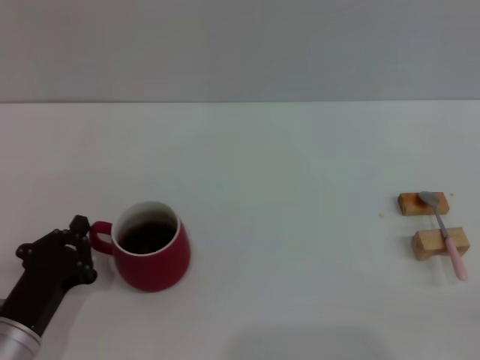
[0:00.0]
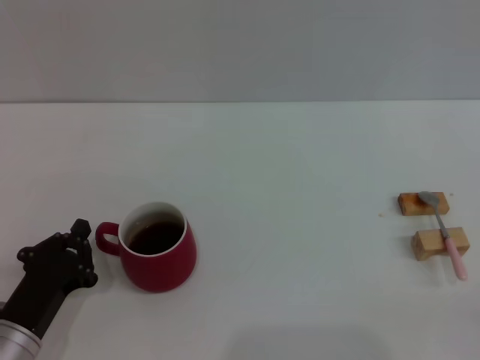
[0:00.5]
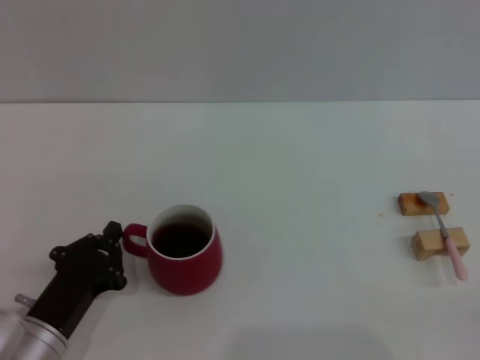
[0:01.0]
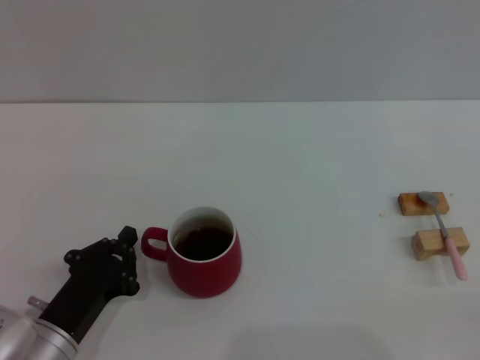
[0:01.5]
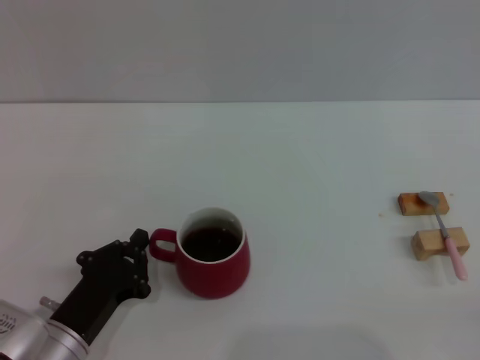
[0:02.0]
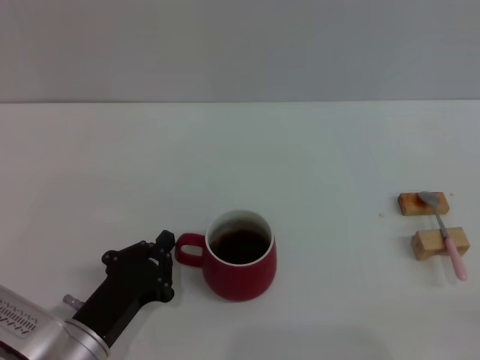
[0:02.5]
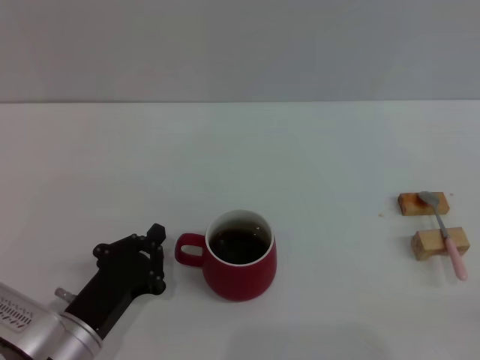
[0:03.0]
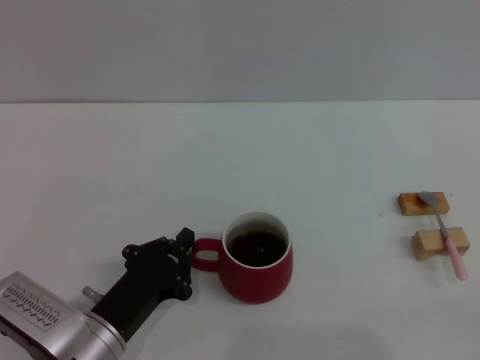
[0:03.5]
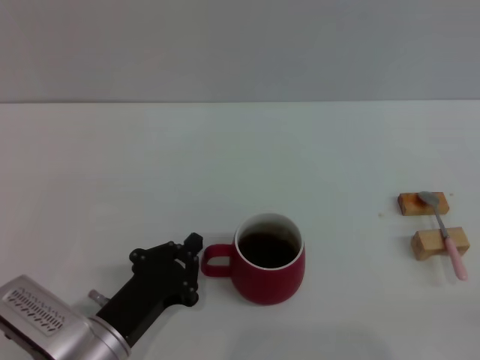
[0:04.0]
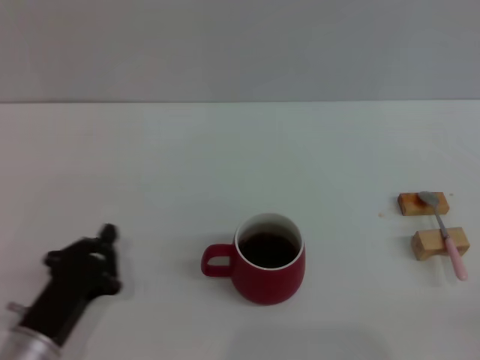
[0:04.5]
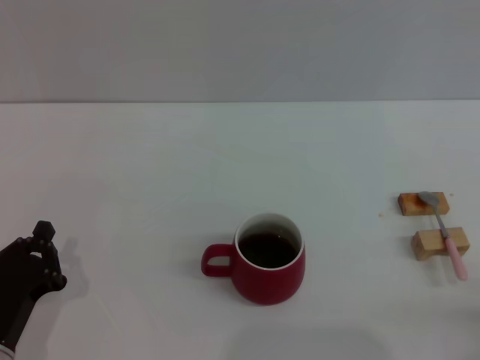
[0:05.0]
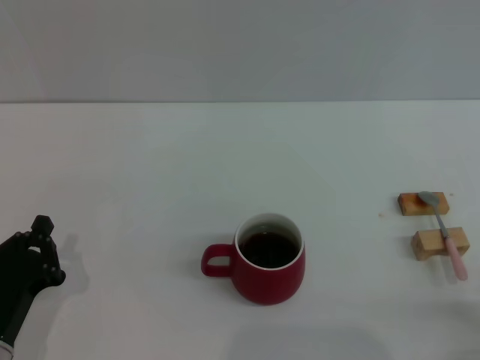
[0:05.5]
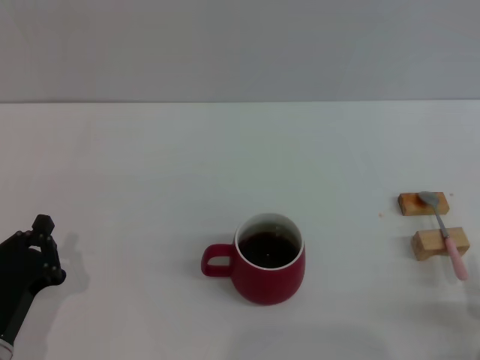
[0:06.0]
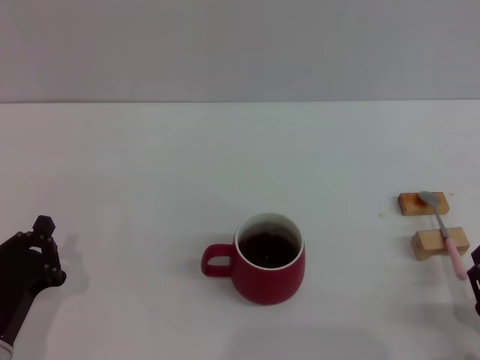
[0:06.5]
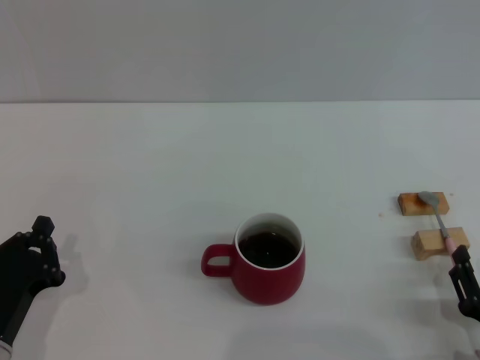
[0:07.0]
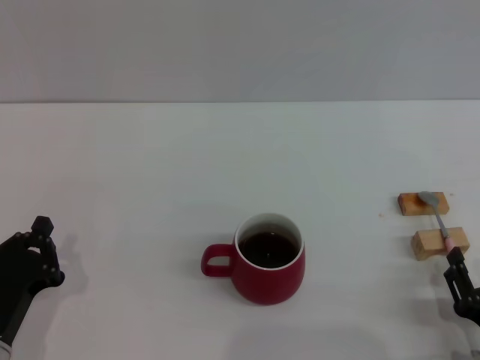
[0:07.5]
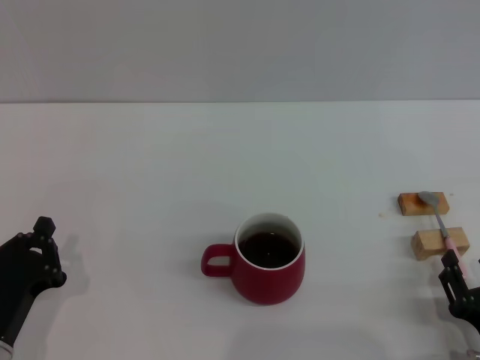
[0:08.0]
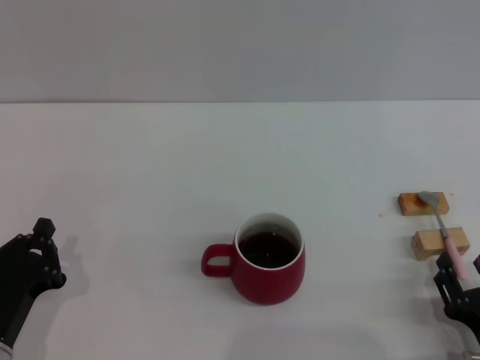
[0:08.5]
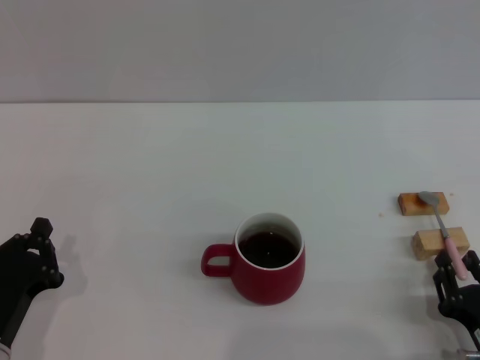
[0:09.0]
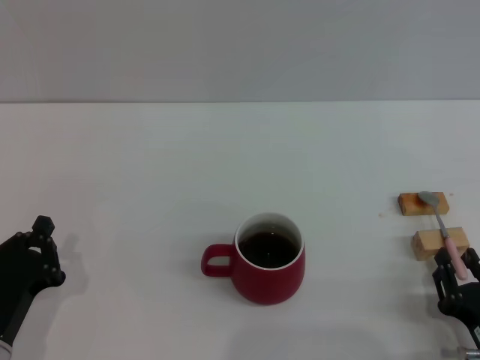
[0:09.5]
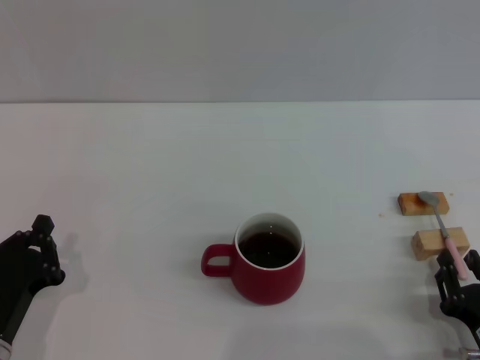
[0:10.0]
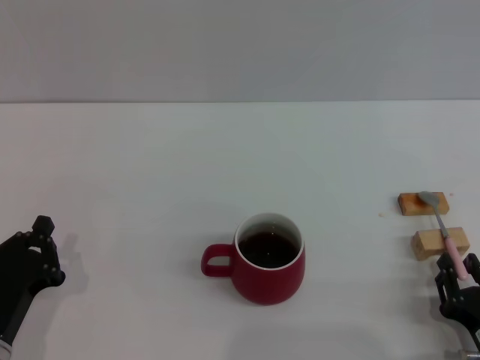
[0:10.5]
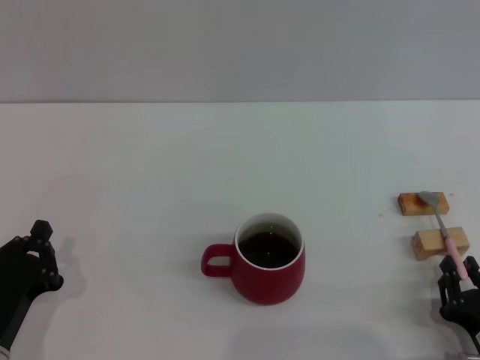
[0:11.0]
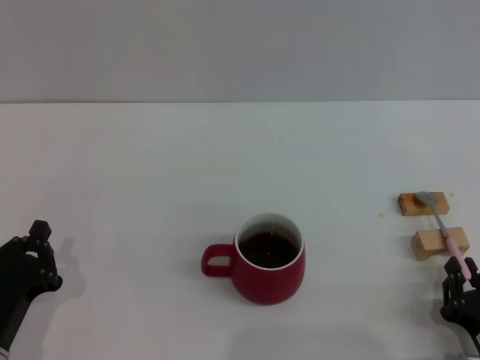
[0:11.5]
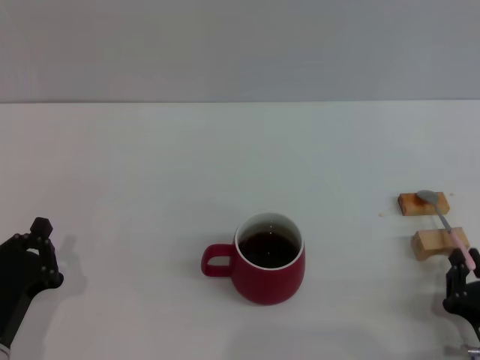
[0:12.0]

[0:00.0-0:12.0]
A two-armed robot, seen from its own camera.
Task of the whole recording: Move the red cup to the center, lift the pink spoon, stir it three times in the cup, and put the spoon into the cup.
Step, 0:00.0 to 0:04.0: Move the cup with coffee to the center of view with the left gripper.
0:00.0 to 0:02.0: The grippers move only a little.
0:02.0 to 0:04.0: There are only small adjustments of the grippers.
0:04.0 to 0:06.0: The right gripper goes some 5 cm to the left; the left gripper moves to the left, approximately 10 cm.
0:06.0 to 0:08.0: There are only small adjustments of the grippers.
0:08.0 to 0:10.0: Both grippers stay about where they are.
0:10.0 to 0:12.0: The right gripper closes its fingers.

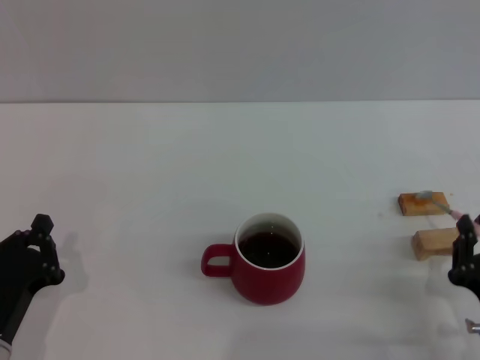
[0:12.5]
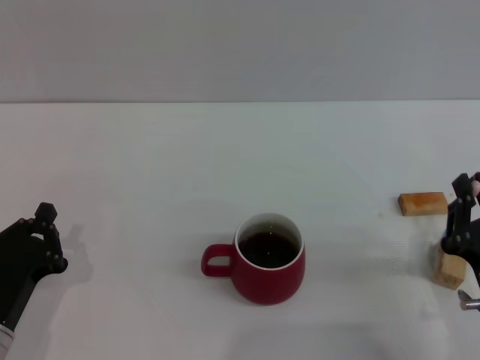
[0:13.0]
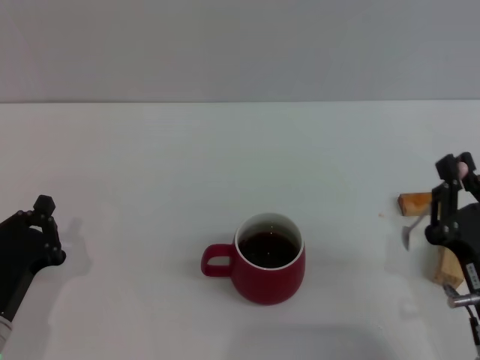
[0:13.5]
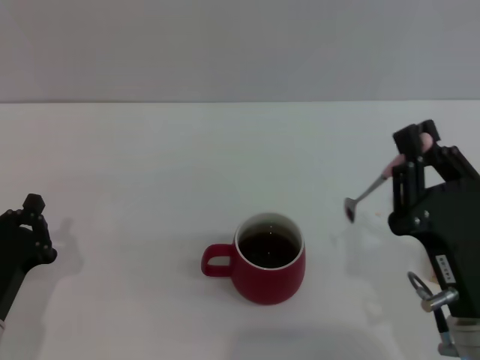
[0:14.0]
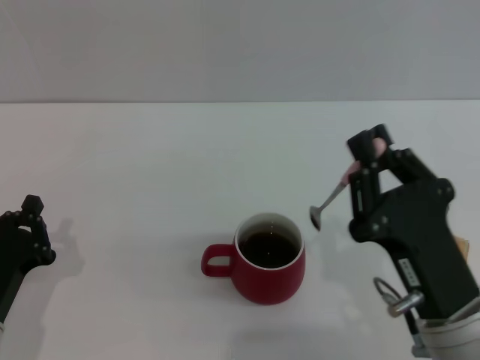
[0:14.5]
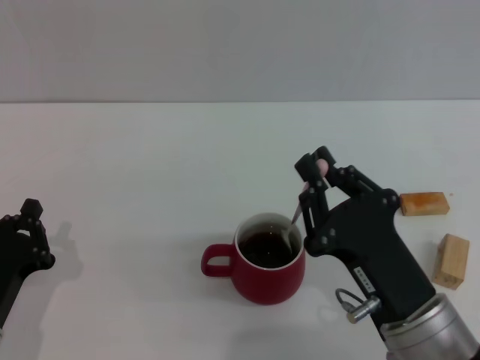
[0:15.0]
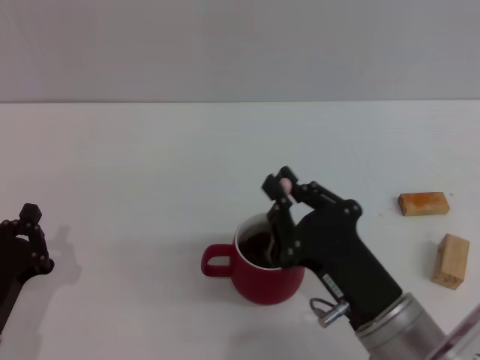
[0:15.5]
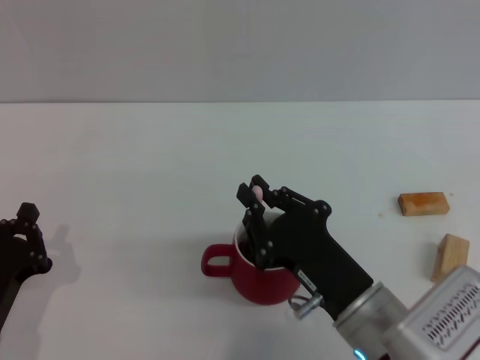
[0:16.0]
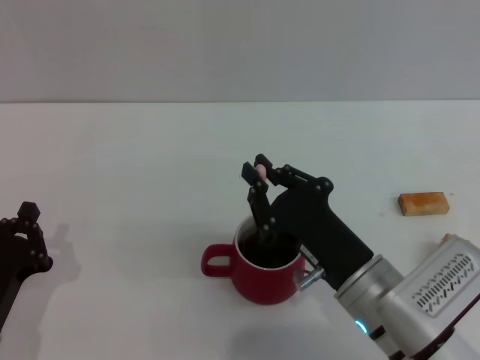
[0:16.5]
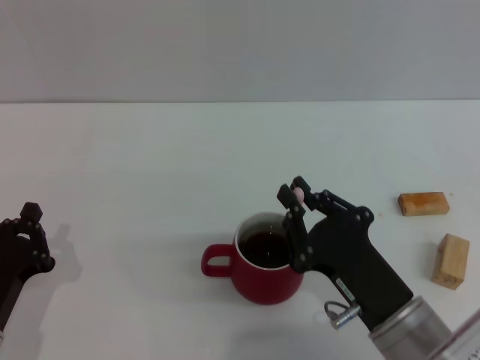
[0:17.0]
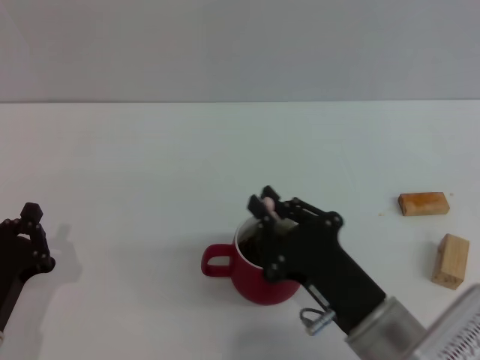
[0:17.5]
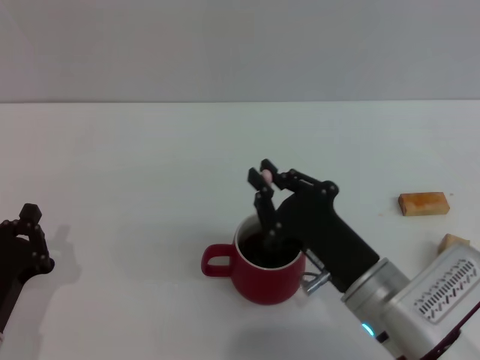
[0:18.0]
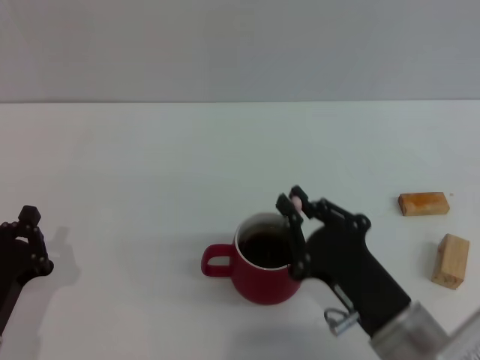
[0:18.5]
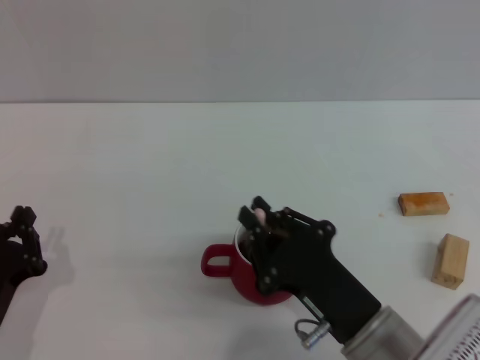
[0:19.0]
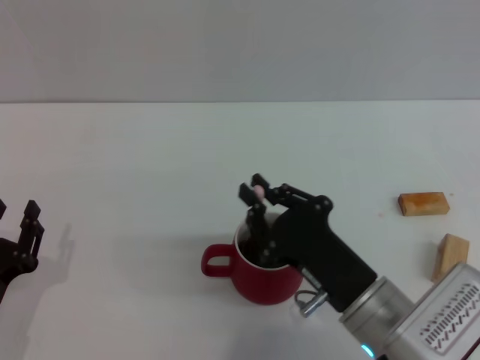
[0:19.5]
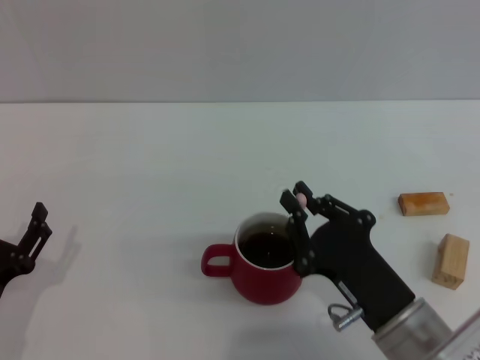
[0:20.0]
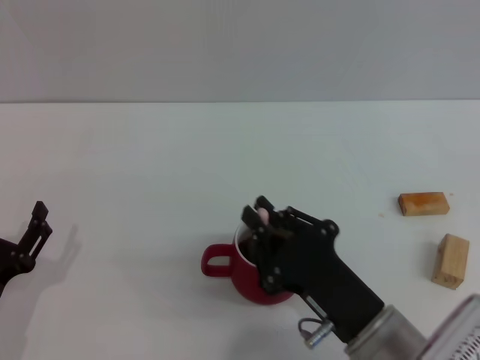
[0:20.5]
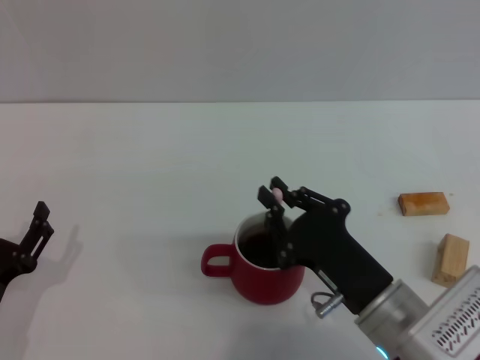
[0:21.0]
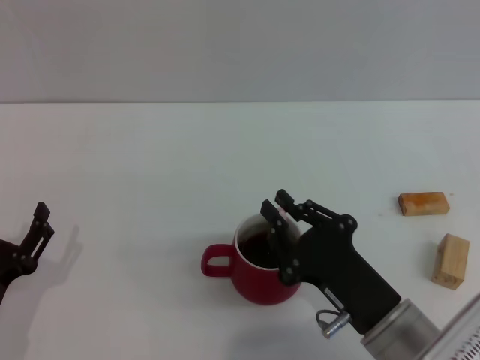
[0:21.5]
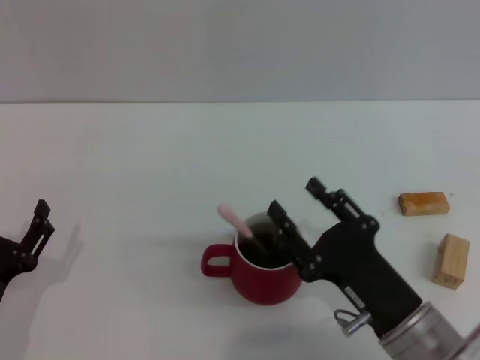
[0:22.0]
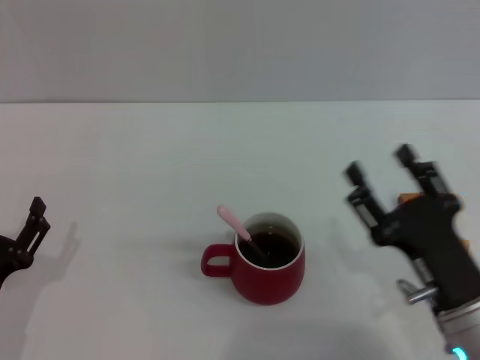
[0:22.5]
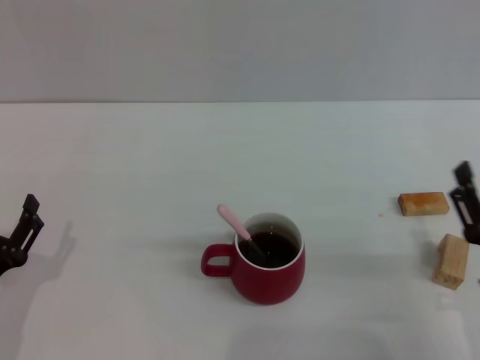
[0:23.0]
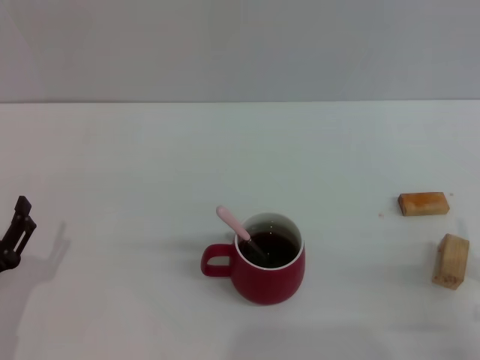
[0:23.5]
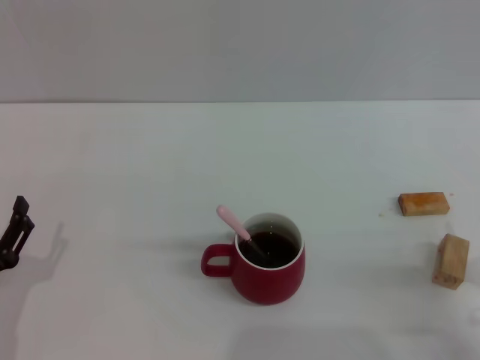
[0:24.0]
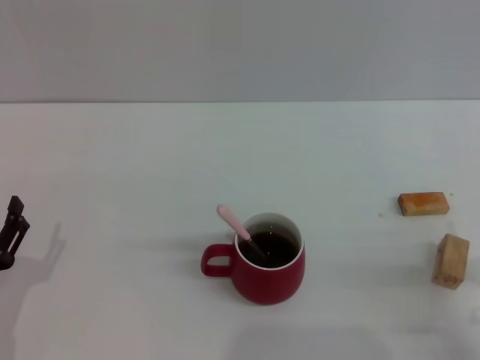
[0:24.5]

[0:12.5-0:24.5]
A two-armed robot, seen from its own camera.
Task of the whole recording: Move the red cup to the center, lift the pink spoon, stir it three times in the cup, and put the spoon into the cup.
Step, 0:14.0 to 0:22.0: Stir the coffee in the cup with the right gripper.
0:12.5 to 0:14.5: The right gripper travels to the left and upward by roughly 10 cm.
0:14.5 to 0:16.5: The right gripper heads forward, covering some 5 cm.
0:16.5 to 0:18.5: The right gripper swings forward and backward, about 5 cm each way, with 2 reversals.
0:18.5 to 0:20.5: The left gripper opens up.
0:20.5 to 0:22.5: The right gripper shifts some 5 cm to the right, and opens.
0:22.5 to 0:24.5: The right gripper heads to the right, covering about 10 cm.

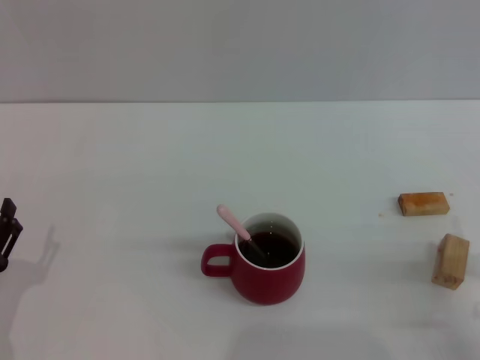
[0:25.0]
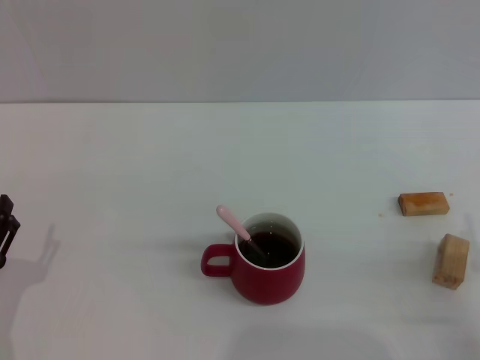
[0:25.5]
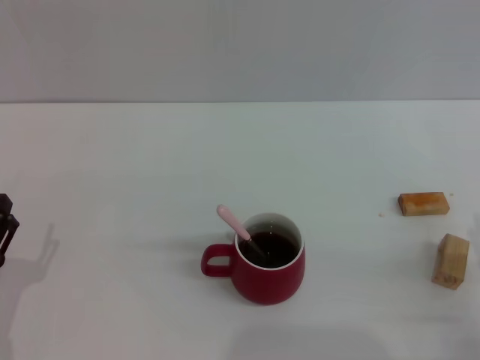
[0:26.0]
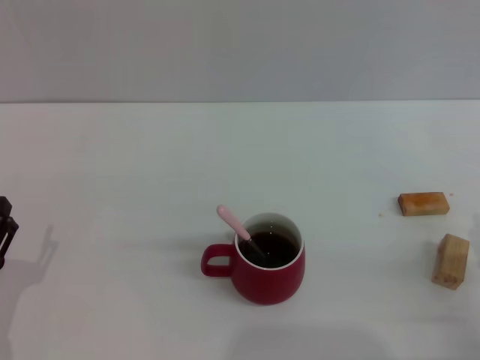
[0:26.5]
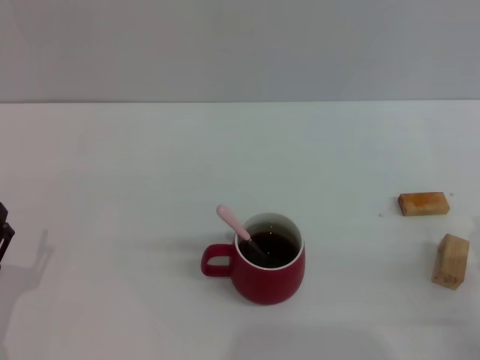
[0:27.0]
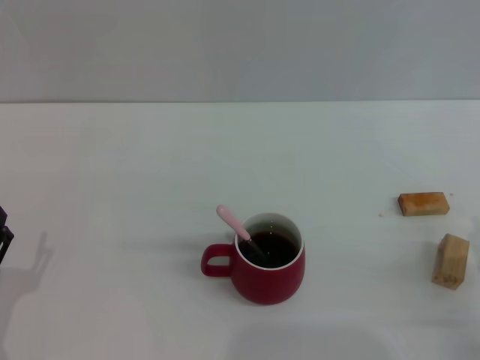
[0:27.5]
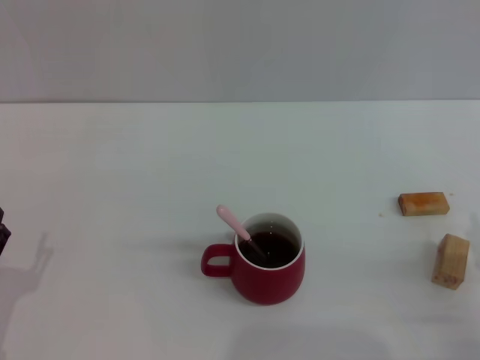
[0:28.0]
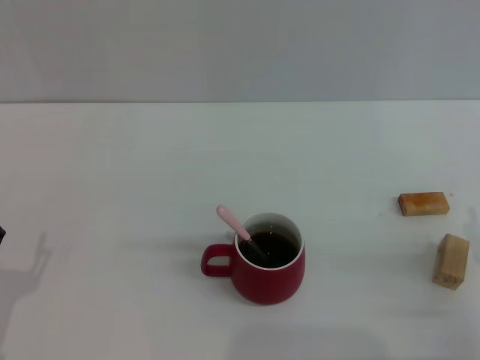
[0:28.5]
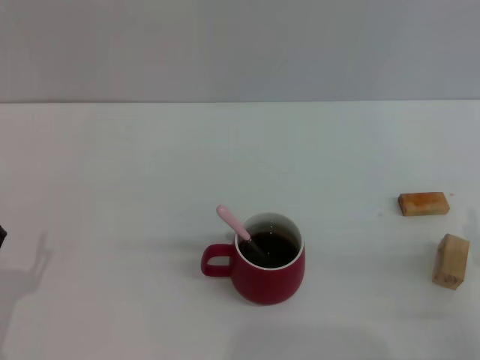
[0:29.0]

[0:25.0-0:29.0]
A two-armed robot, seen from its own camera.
Task of the whole recording: Move the red cup to the center, lift the pink spoon, stir it three times in the cup, and put the spoon into the cup.
0:27.0 to 0:29.0: Neither gripper changes place.
